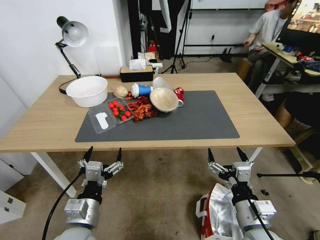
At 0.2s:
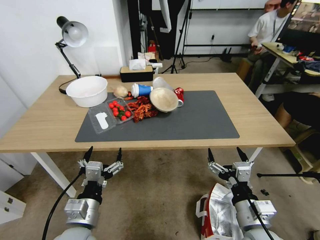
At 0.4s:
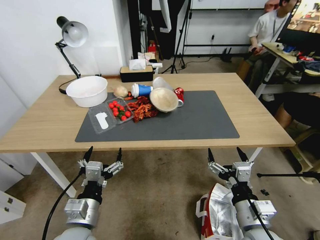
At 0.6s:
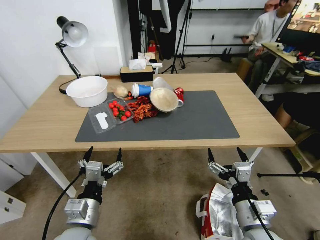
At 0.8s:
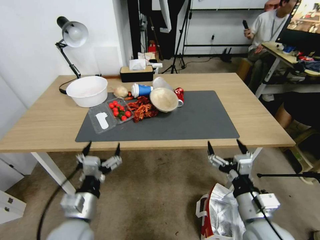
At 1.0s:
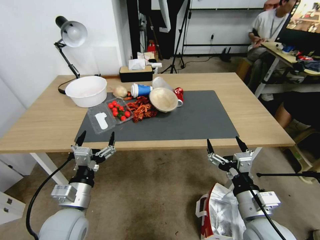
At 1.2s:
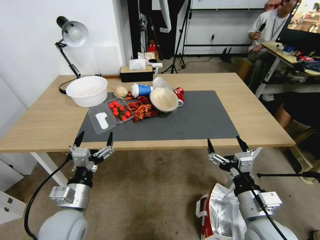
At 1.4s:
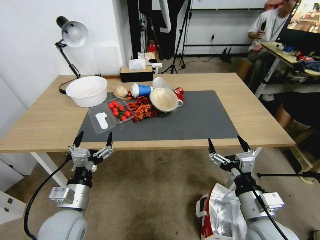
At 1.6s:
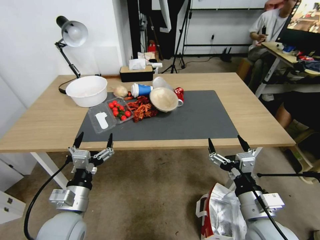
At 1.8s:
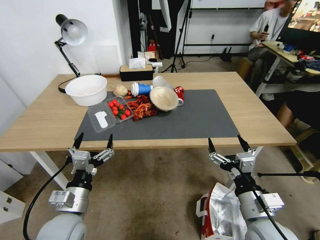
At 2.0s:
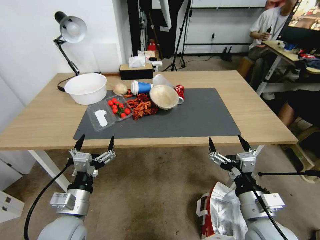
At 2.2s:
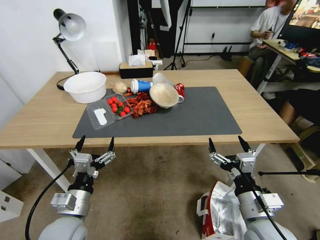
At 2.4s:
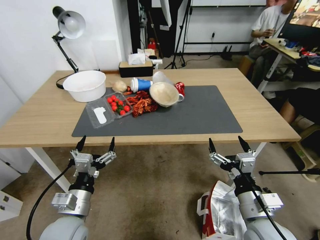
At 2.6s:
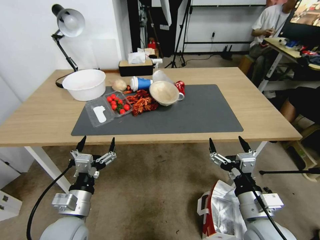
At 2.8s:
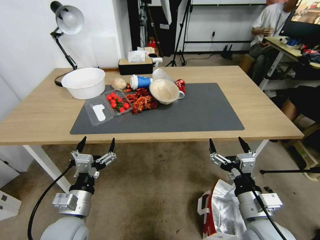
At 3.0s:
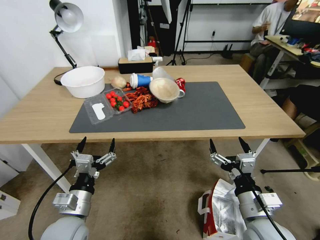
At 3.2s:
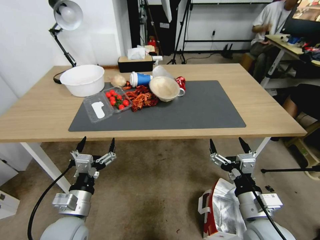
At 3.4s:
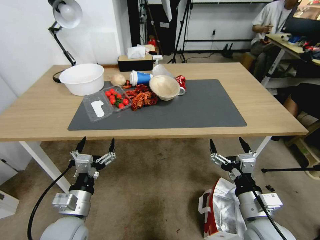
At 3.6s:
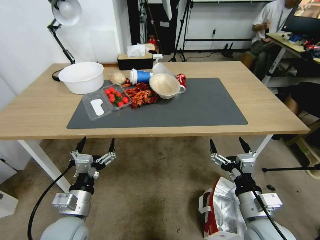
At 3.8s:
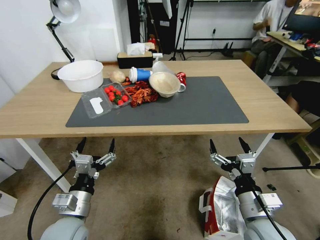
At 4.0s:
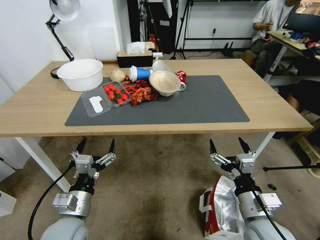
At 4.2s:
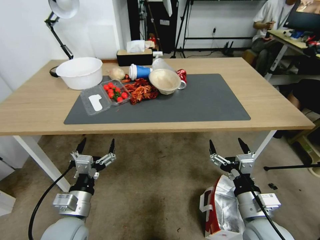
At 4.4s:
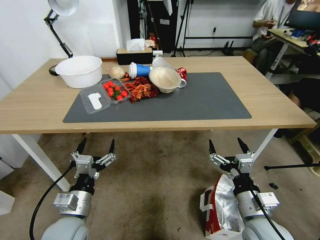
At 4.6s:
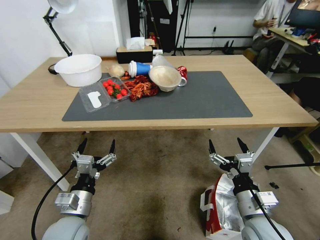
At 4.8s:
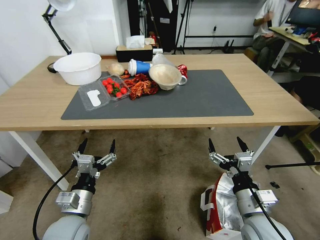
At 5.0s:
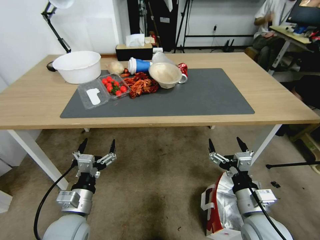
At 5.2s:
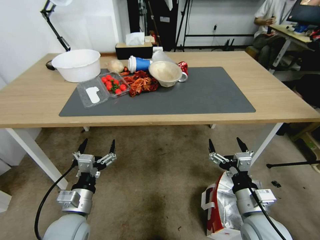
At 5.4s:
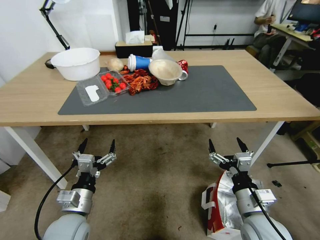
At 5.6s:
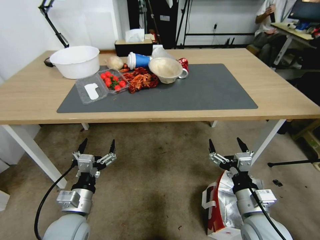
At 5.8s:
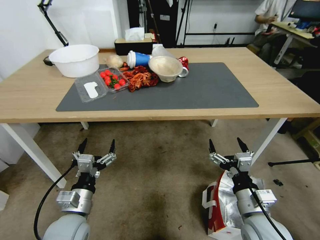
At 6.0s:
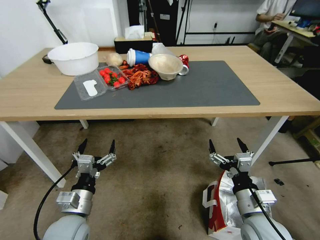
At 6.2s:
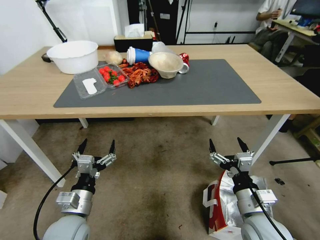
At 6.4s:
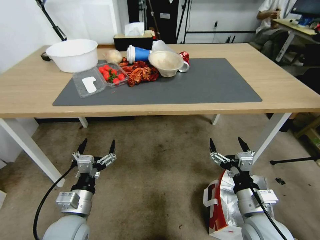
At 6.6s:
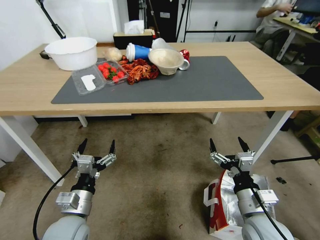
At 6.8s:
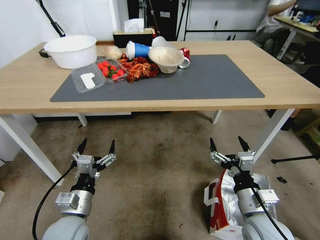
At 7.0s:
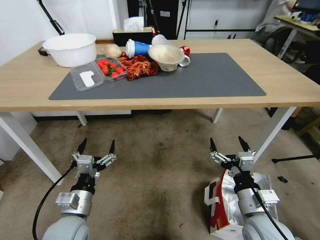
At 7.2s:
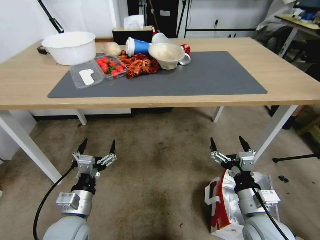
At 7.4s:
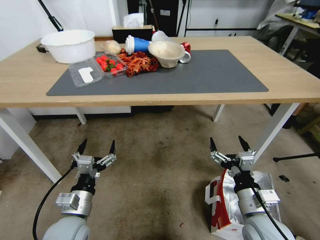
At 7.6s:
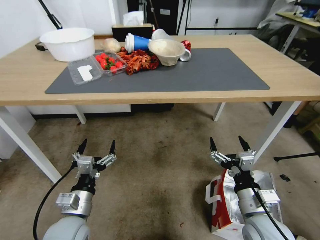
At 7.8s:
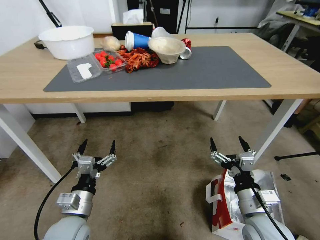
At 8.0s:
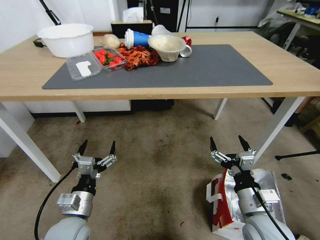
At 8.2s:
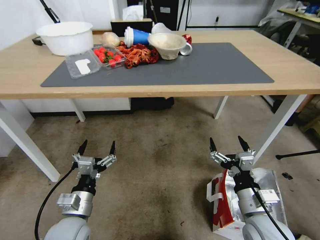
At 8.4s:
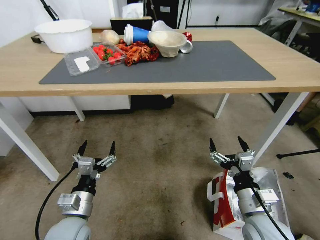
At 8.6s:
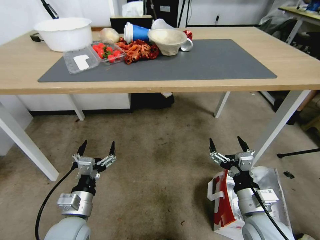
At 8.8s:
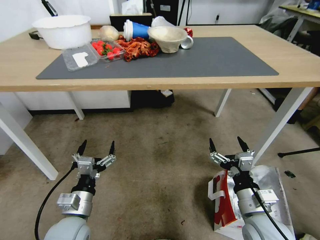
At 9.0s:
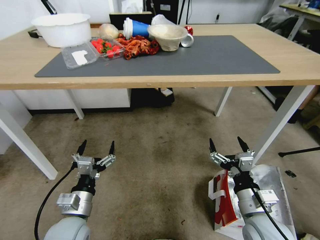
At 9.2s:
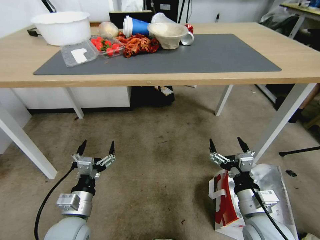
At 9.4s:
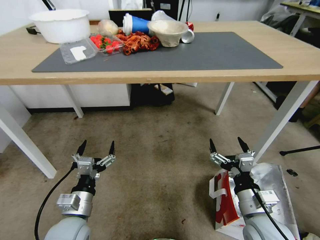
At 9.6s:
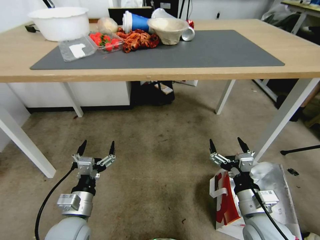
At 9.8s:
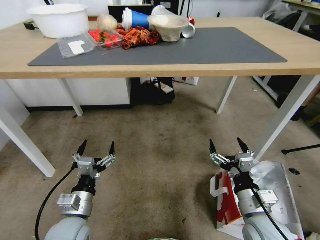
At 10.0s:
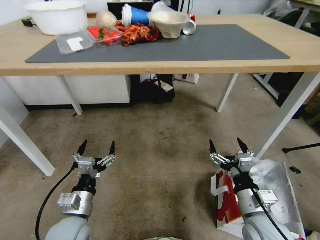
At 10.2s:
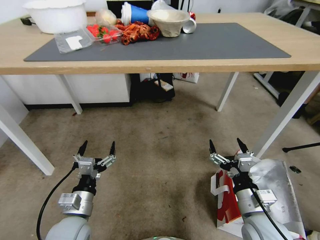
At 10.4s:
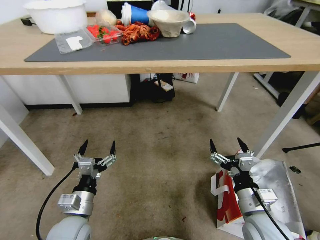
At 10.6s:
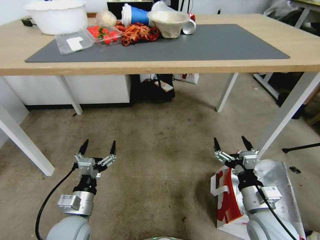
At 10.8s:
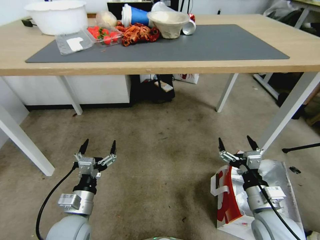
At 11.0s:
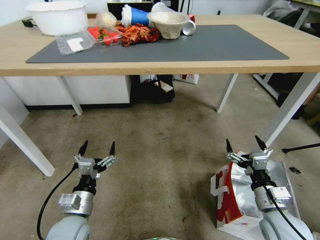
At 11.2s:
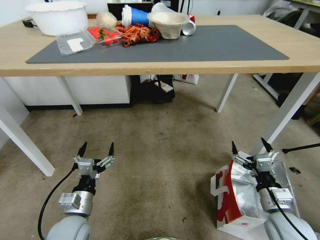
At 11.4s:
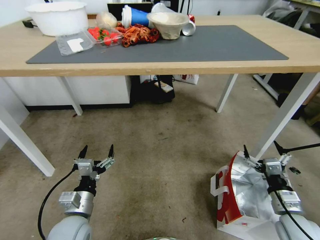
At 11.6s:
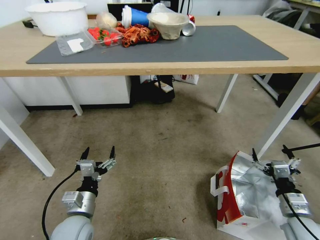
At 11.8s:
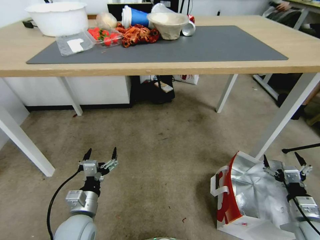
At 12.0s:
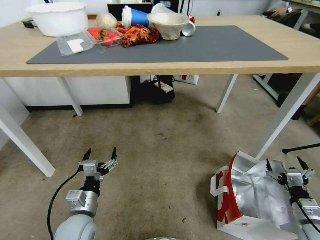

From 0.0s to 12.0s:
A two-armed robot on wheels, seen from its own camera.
Task of the whole recording: Pick up the food delivery bag from the floor and place it on the table.
From 10.4s to 12.0s: The right gripper shifts some 20 cm to the right and downward.

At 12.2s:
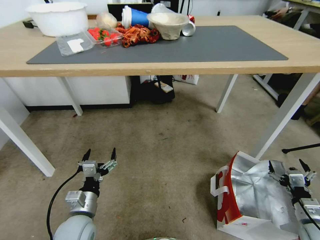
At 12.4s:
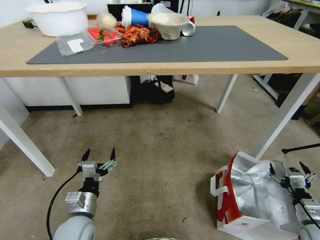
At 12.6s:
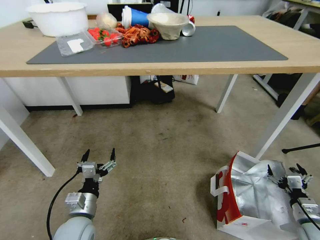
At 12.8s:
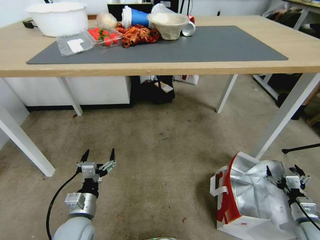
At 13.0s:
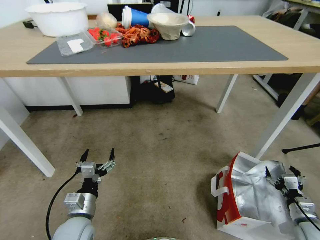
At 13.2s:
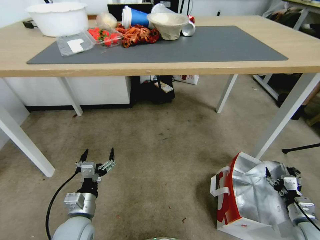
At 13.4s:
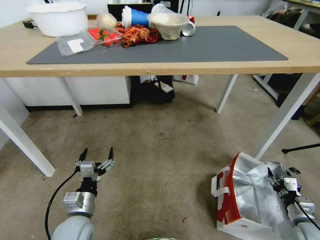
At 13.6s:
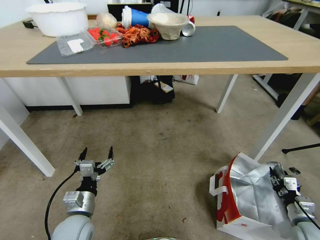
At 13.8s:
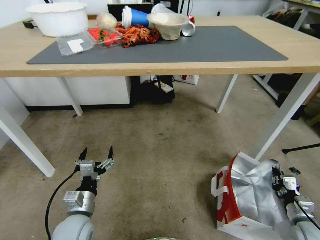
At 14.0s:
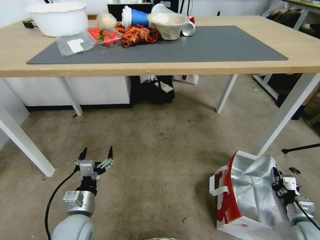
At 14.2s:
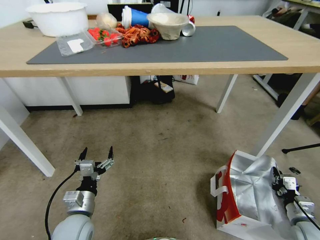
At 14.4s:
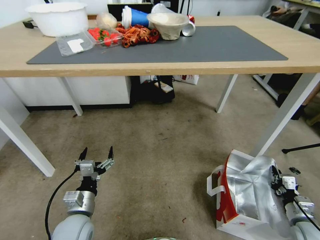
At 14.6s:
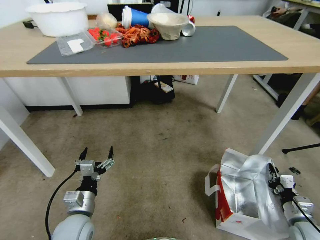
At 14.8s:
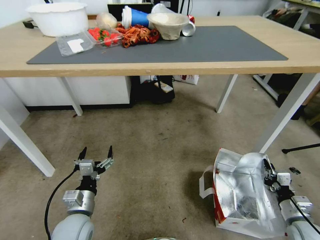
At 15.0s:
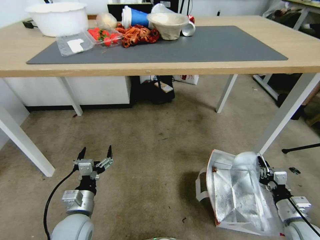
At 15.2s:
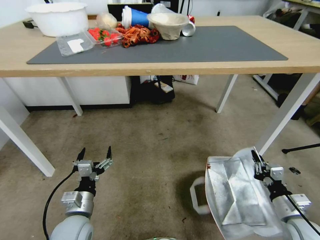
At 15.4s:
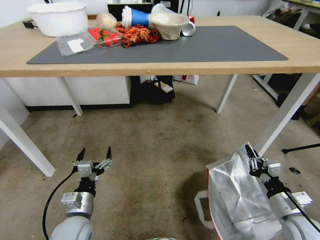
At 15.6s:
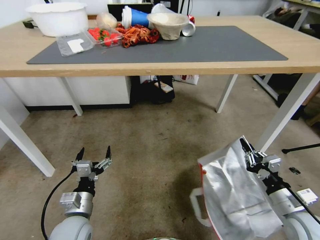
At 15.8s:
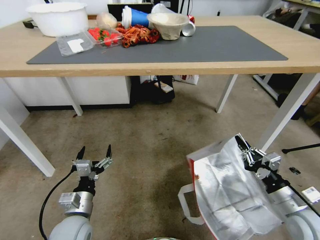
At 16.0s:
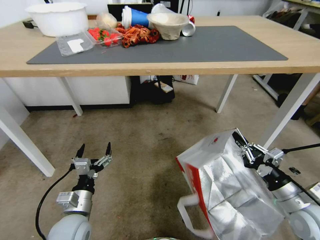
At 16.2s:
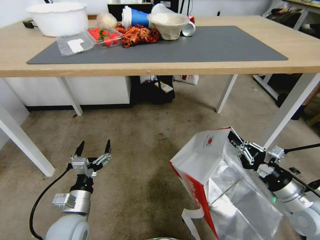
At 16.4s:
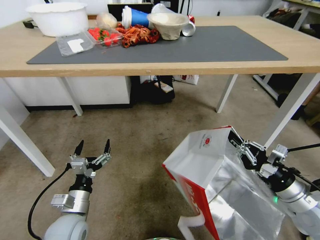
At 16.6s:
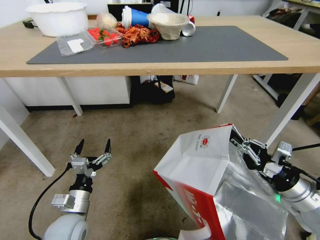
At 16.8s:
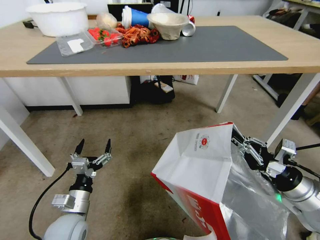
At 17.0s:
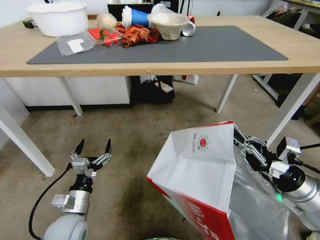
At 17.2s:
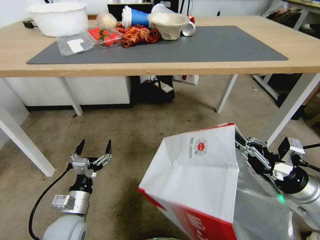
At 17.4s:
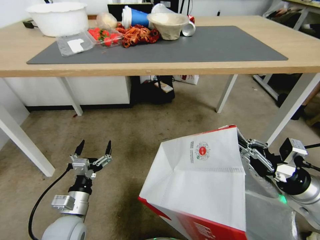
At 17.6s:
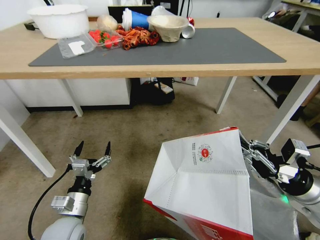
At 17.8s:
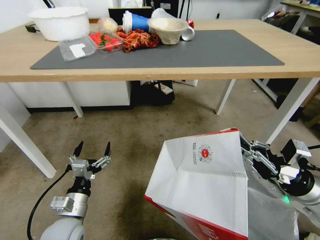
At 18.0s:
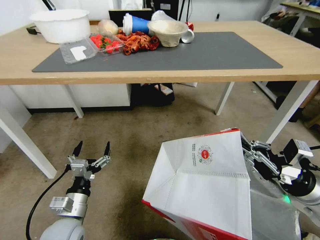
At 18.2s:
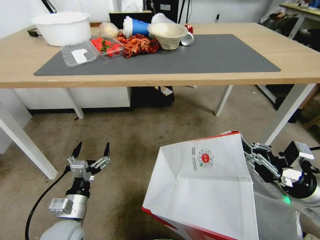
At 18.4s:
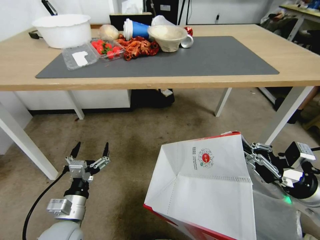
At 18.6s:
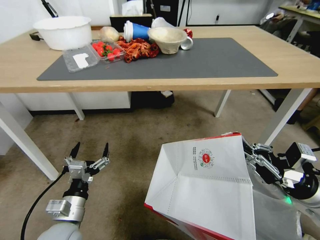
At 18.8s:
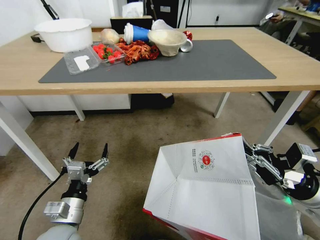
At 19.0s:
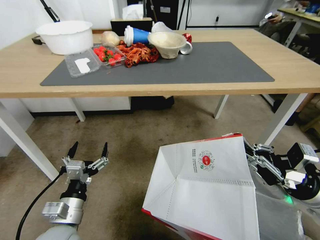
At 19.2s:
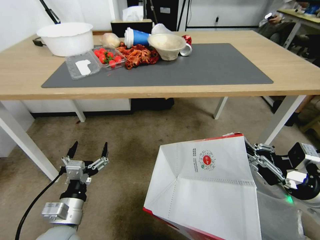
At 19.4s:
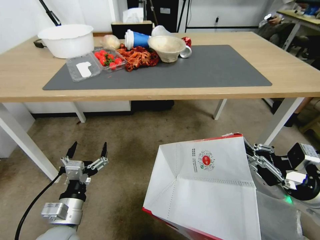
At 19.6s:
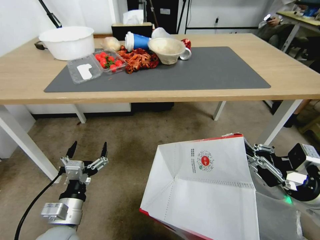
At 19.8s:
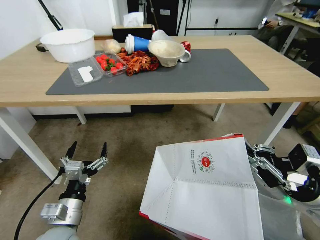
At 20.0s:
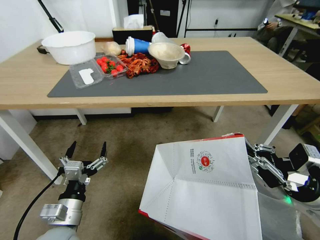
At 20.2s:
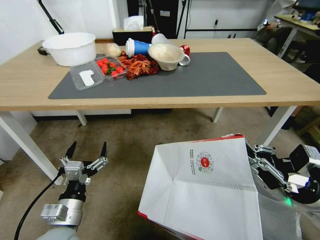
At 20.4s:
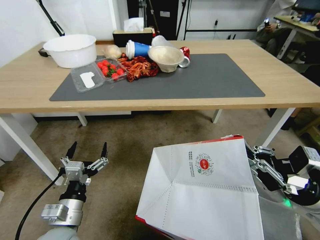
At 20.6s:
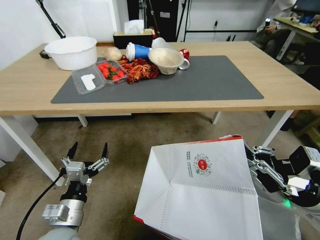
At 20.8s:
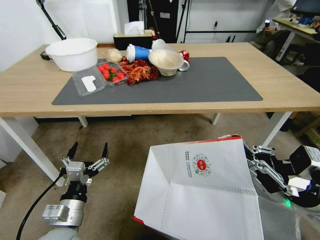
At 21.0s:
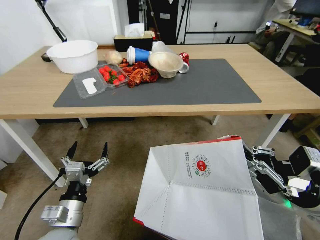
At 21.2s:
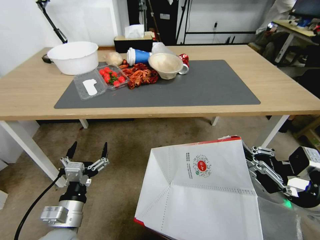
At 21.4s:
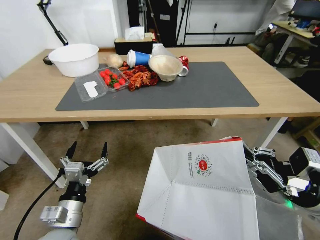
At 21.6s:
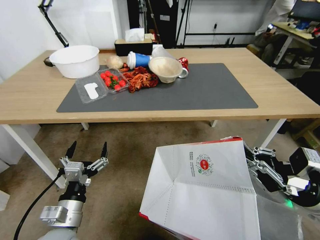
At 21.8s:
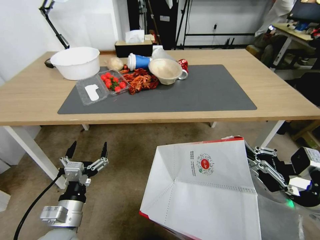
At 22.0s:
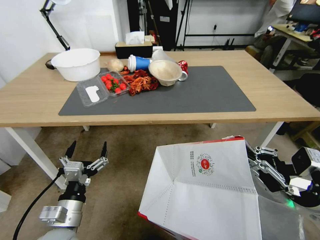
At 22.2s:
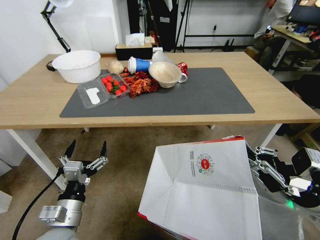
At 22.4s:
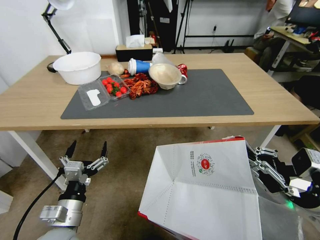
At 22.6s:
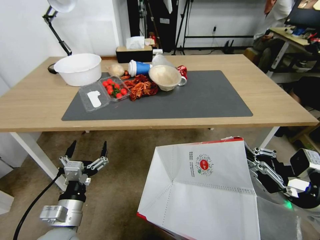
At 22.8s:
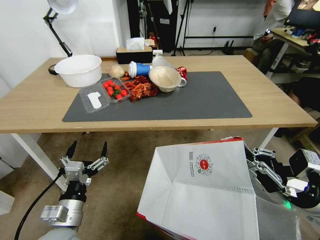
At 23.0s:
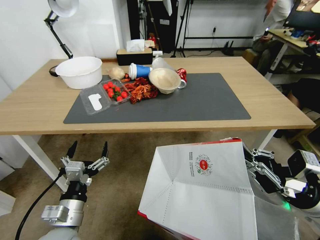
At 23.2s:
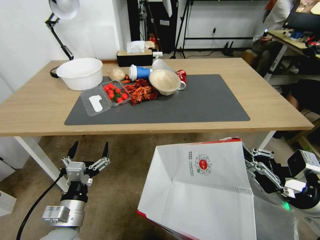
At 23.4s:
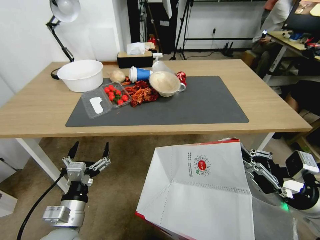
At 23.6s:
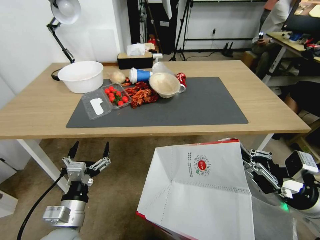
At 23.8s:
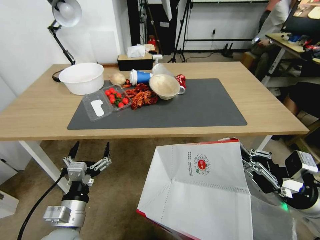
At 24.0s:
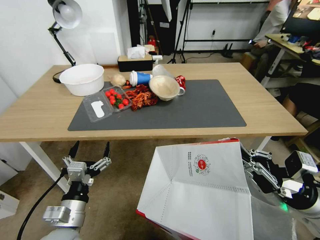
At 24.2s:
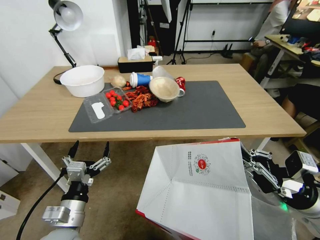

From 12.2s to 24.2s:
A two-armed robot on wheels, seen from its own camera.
Task of the whole recording: Pick up the food delivery bag from the floor and place it on the table.
From 12.2s to 13.8s: The right gripper closes up.
From 13.8s to 15.2s: The right gripper moves to the left and upward, approximately 10 cm.
From 15.2s to 16.6s: The right gripper moves upward, some 10 cm.
